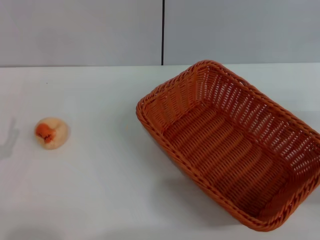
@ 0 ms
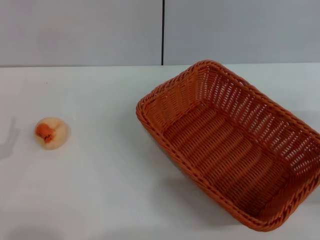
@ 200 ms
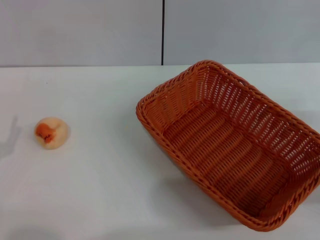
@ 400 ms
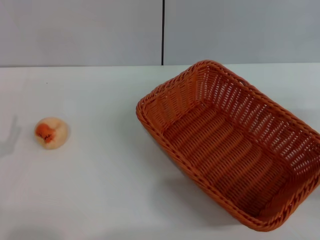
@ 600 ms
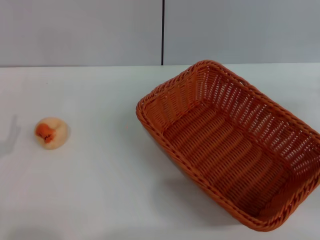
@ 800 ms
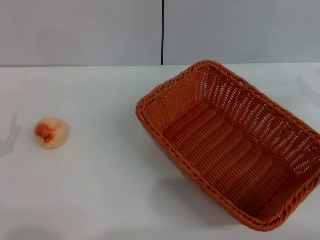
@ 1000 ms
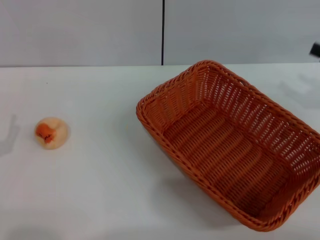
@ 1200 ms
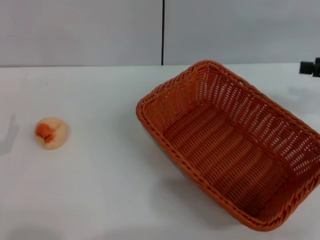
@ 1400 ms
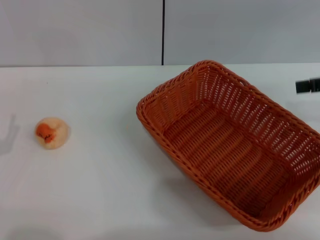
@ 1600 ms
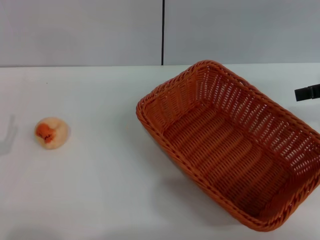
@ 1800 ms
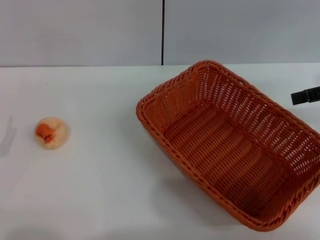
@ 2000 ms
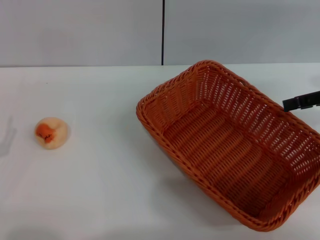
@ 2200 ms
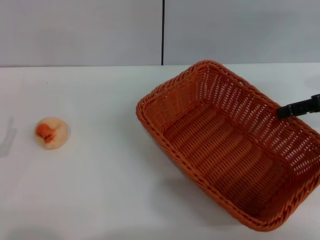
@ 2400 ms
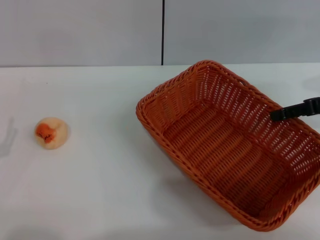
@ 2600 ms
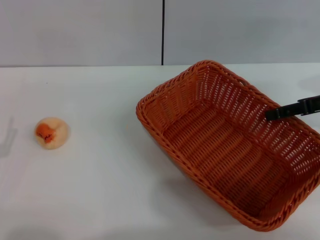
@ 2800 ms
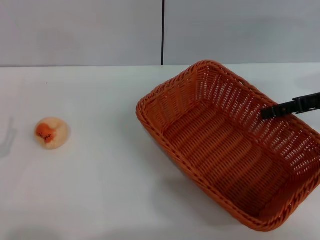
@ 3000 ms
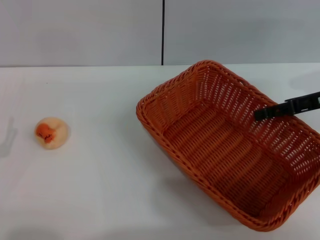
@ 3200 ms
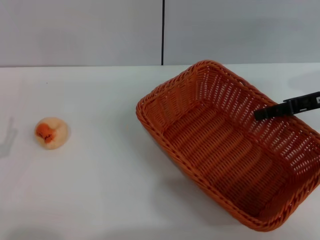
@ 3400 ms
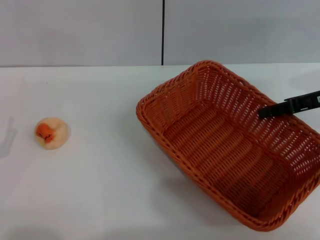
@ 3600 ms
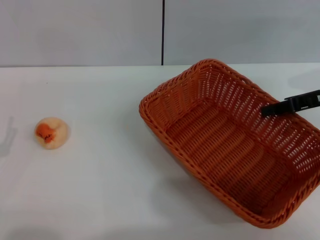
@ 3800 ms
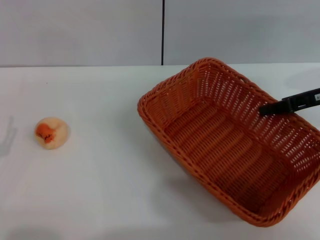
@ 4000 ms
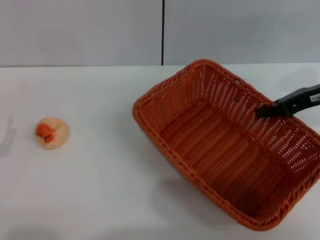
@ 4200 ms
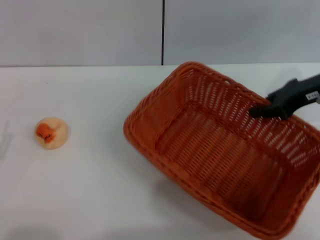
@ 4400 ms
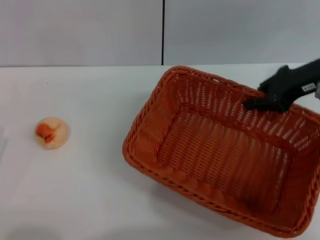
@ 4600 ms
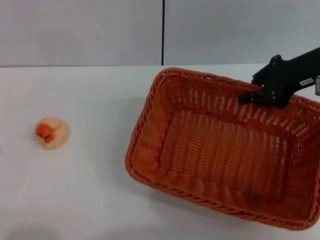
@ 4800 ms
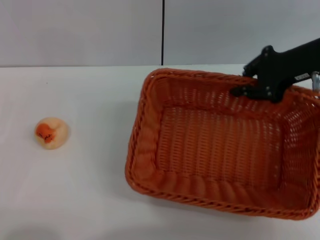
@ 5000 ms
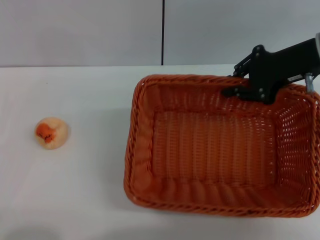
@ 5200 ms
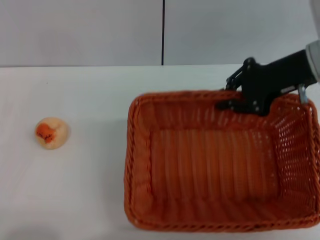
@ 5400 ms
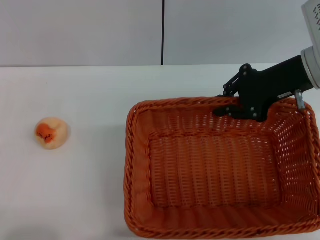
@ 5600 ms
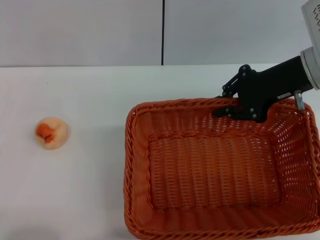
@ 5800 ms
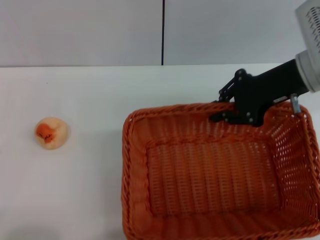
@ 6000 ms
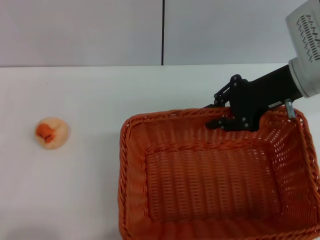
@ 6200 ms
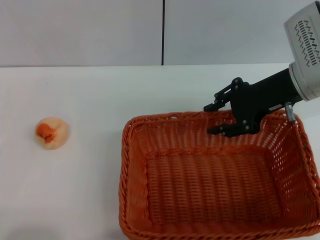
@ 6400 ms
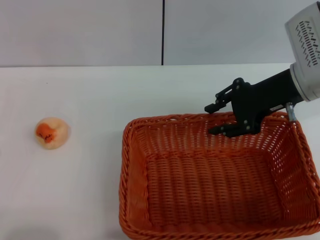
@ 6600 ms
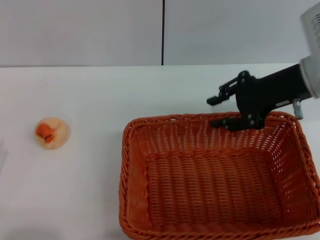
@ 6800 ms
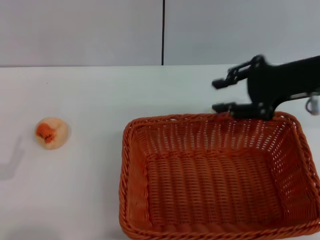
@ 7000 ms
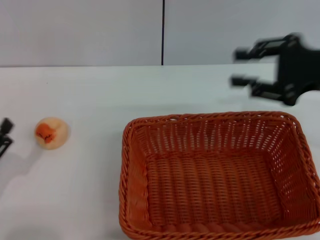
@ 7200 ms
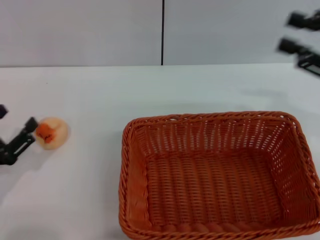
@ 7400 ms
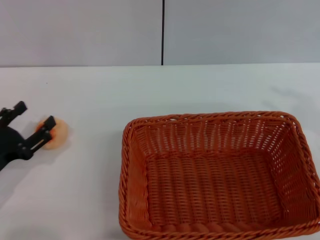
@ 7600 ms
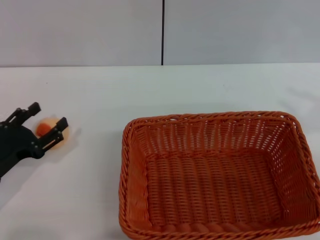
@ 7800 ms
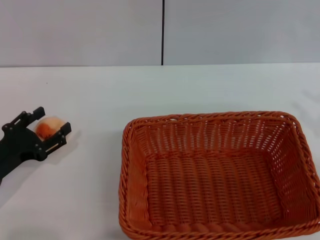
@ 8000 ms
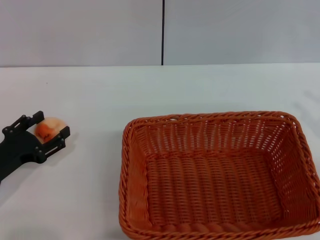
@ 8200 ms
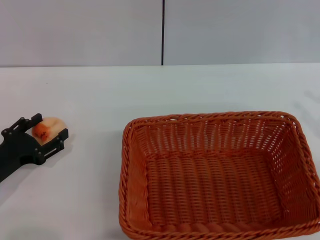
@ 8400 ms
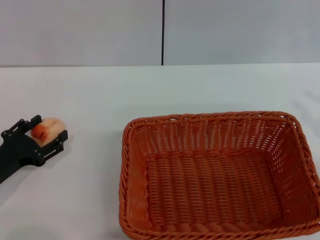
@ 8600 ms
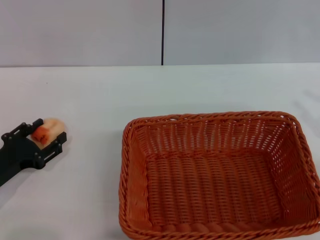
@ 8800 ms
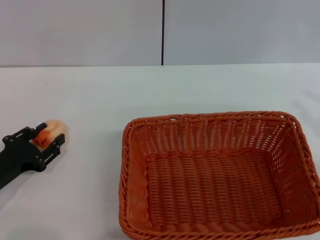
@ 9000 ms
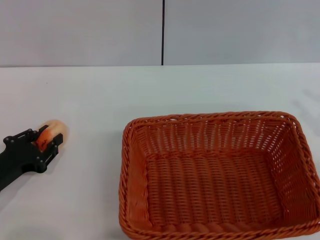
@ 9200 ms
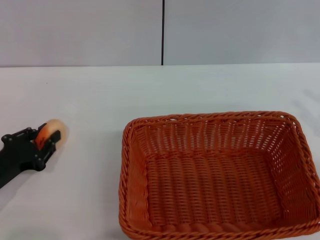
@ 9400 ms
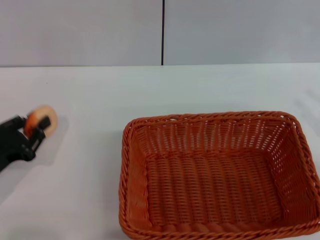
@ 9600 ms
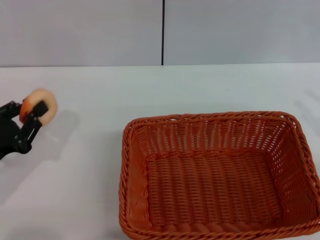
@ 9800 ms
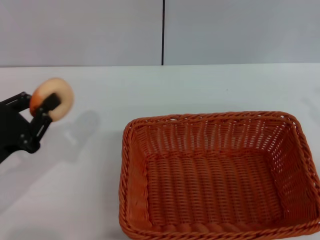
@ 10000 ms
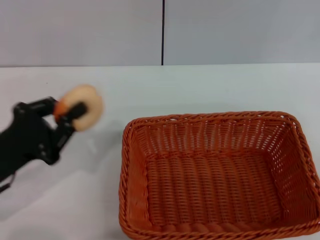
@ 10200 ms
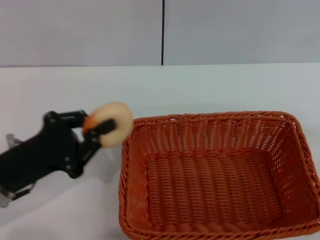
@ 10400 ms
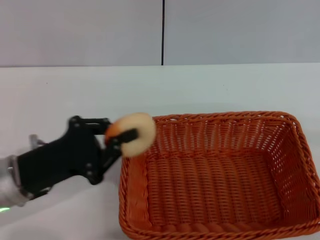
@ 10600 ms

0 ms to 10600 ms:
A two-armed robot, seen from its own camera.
Step, 0 ms to 6800 ms: Move the basket to the center of view with the right gripper.
Step, 7000 ms to 9800 ms: Pick up the egg yolk pastry with the left gripper.
0 ms to 1600 ms: The right gripper shifts some 15 cm upward and forward.
1600 ms to 3000 ms: The right gripper shifts approximately 5 cm downward.
3000 ms to 4600 ms: The right gripper heads to the left, covering roughly 5 cm, and closes its fingers.
6000 ms to 7600 ms: The left gripper moves forward, roughly 10 cm; the right gripper heads to the right and backward, covering approximately 20 cm.
7600 ms to 9000 ms: The grippers make only small movements.
9000 ms to 10600 ms: The right gripper heads to the right and downward, covering roughly 10 cm; the left gripper heads to the right and upward, covering roughly 10 cm, and closes up.

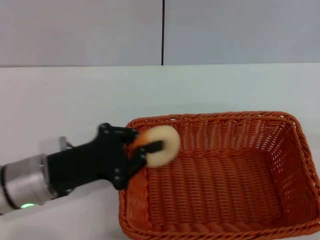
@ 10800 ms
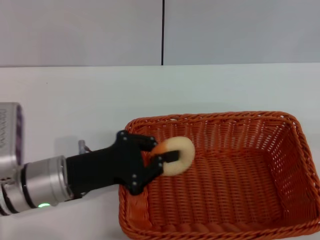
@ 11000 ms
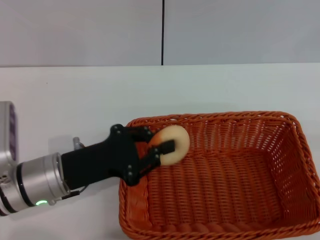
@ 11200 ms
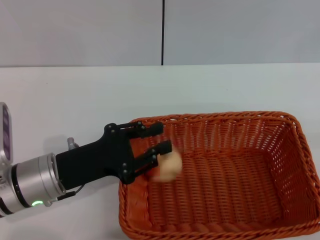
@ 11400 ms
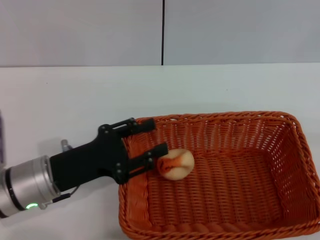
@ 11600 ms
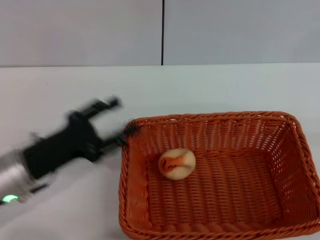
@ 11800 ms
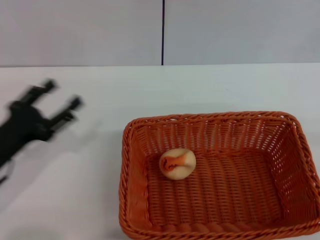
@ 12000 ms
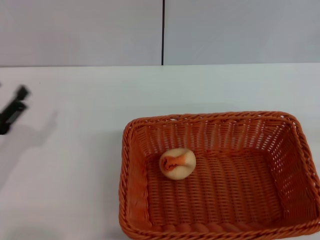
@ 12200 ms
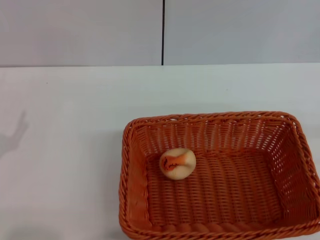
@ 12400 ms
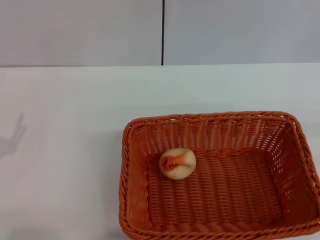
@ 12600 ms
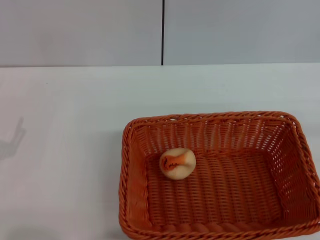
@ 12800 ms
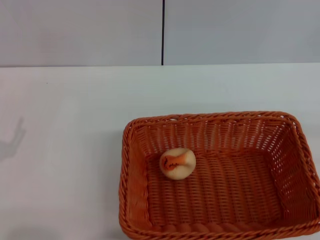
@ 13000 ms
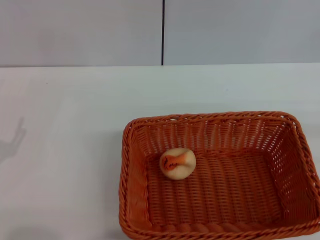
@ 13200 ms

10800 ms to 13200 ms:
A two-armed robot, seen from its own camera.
10800 ms to 12000 ms: The left gripper heads to the left, covering roughly 10 cm, and opens up.
12000 ms to 13200 ms: The left gripper shifts approximately 5 cm backward.
